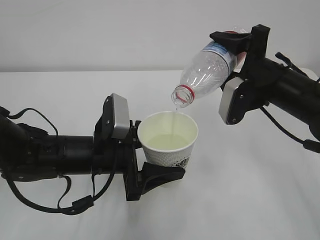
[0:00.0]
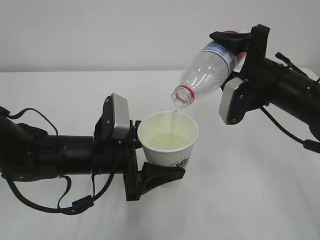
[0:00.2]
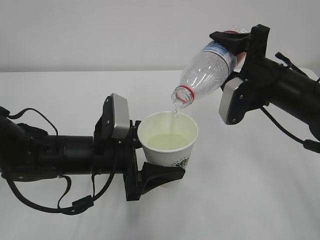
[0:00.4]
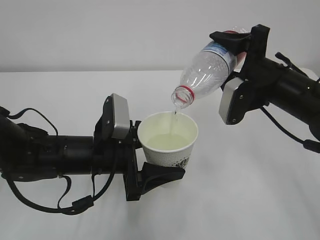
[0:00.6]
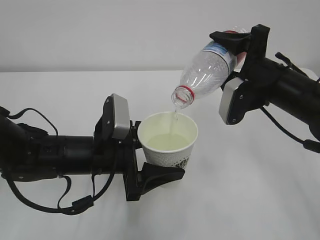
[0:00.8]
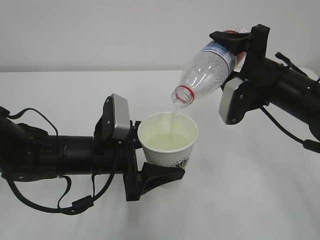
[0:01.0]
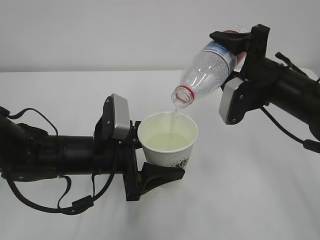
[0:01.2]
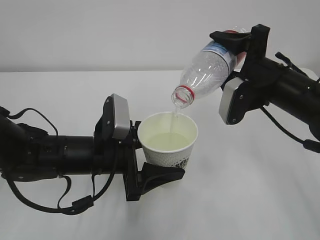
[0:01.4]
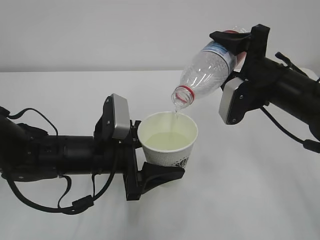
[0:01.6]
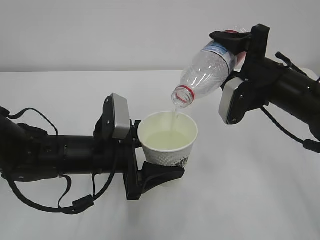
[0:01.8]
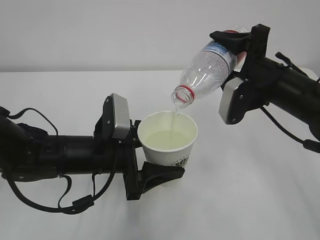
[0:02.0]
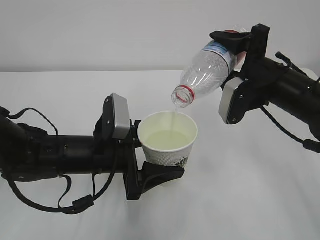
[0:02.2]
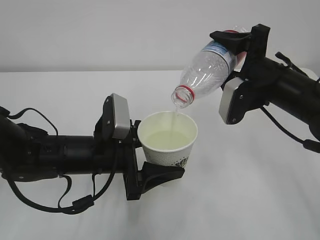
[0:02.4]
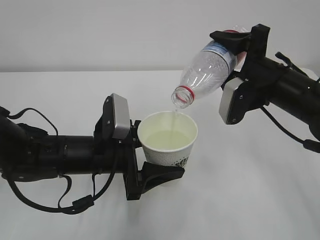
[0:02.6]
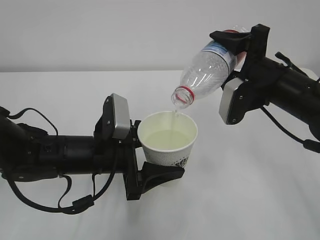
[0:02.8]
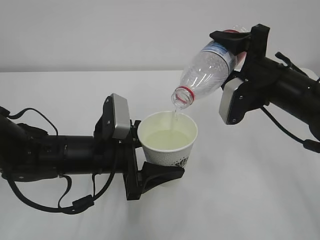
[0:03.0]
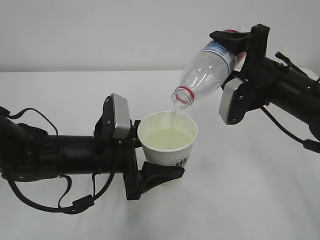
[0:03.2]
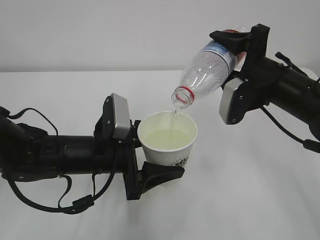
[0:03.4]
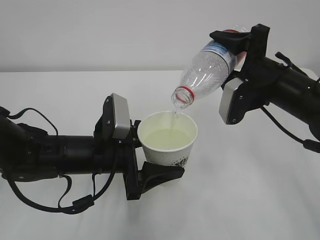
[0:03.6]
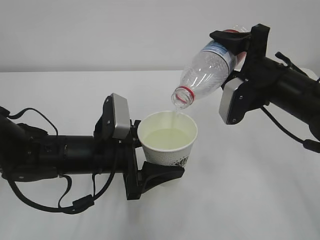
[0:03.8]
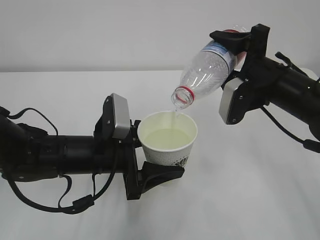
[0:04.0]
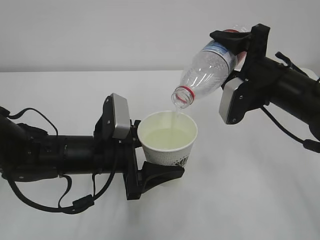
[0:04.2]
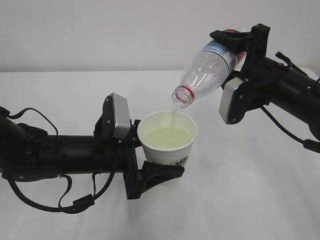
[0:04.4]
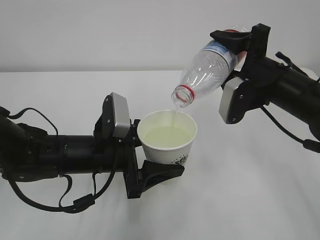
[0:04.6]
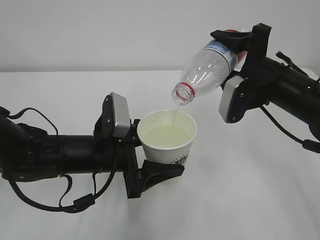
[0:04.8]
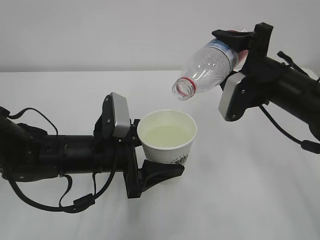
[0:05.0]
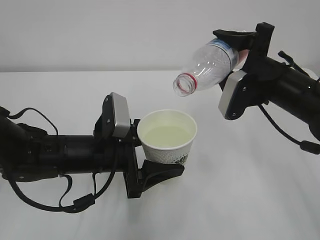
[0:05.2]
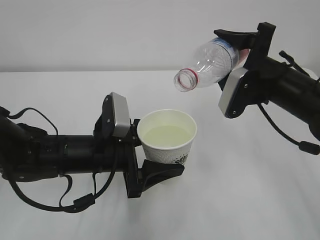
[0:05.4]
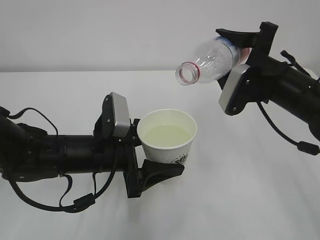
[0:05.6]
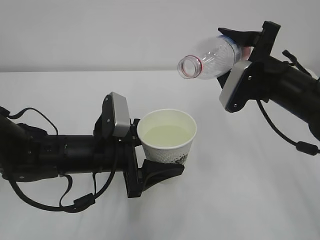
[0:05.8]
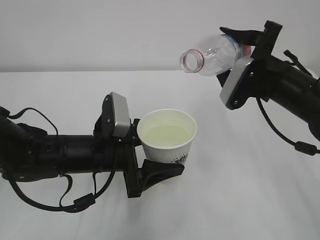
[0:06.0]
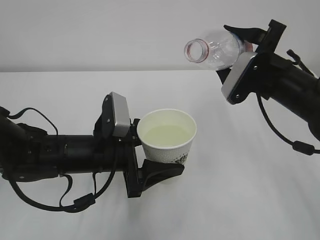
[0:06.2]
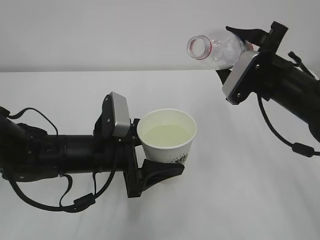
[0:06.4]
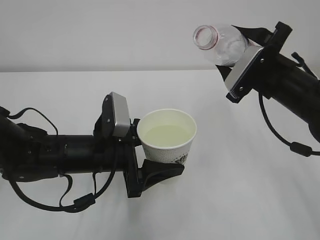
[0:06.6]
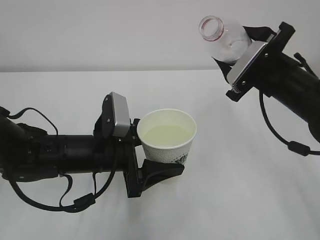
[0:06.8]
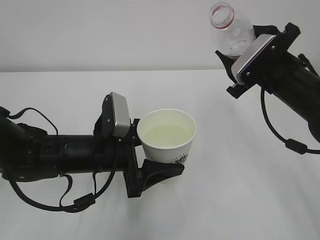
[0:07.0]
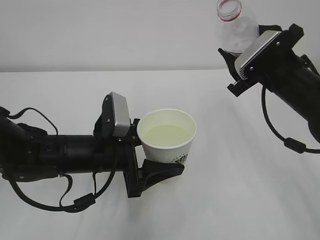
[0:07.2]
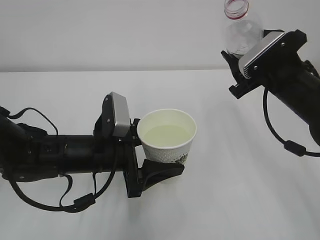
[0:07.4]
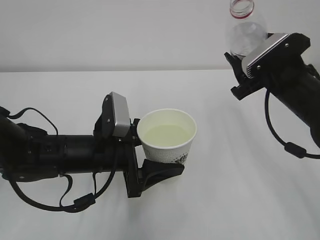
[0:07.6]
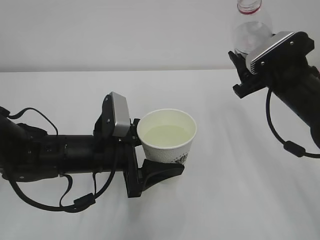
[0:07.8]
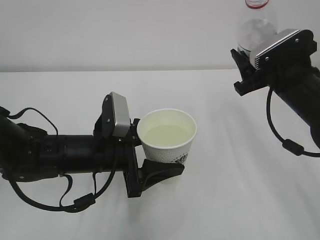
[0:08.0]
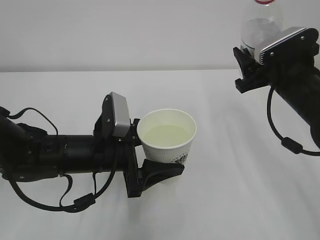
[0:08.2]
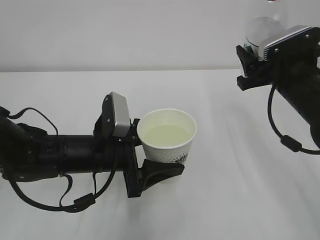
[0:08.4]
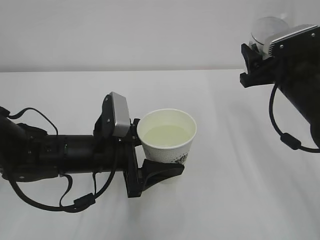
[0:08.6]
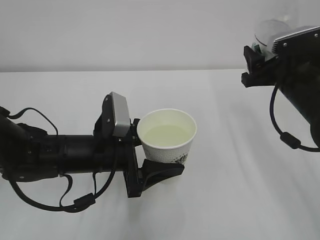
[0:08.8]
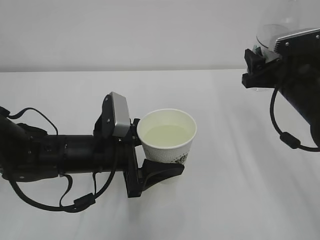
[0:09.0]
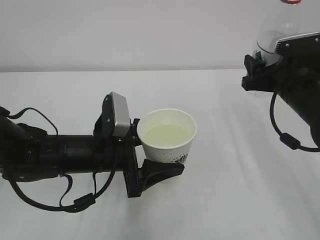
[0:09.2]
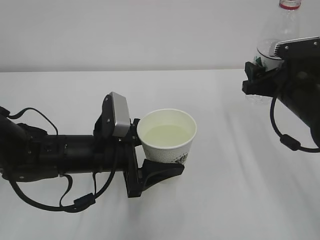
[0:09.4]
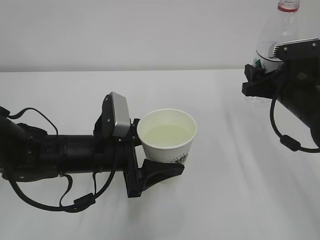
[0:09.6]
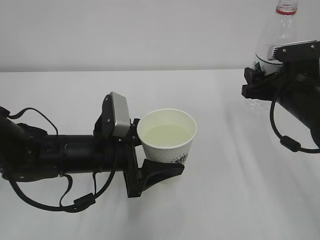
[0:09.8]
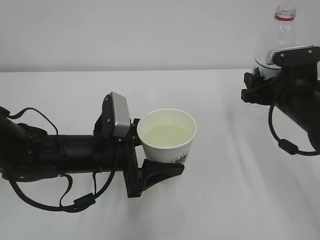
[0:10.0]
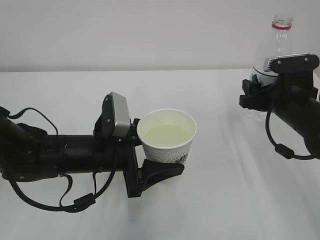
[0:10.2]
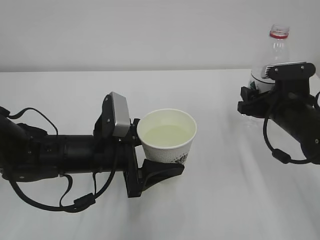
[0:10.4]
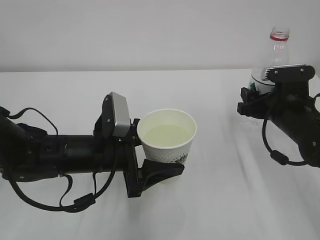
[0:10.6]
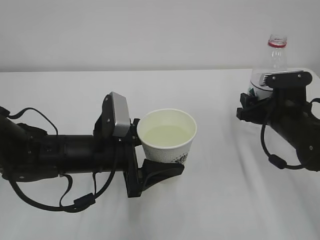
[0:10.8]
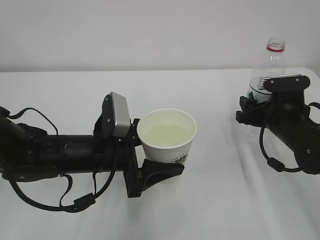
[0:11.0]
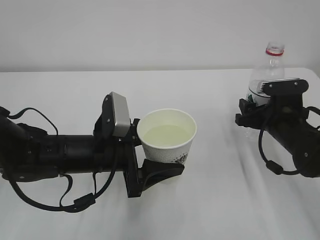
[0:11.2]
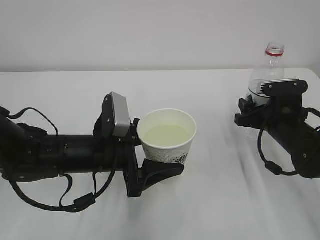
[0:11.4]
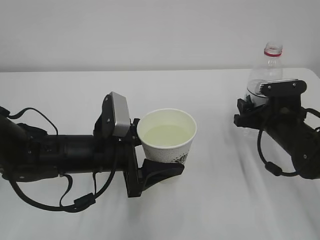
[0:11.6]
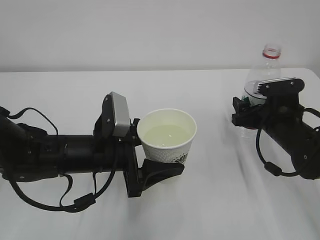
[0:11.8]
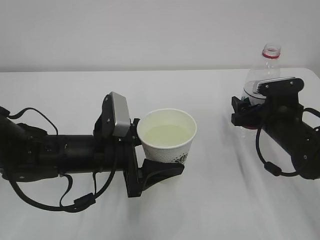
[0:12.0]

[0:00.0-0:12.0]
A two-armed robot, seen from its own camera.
0:00.0 to 0:04.4: Both grippers stay put.
0:09.0 to 0:10.4: The right gripper goes approximately 5 cm downward.
0:10.4 to 0:12.0: The right gripper opens up.

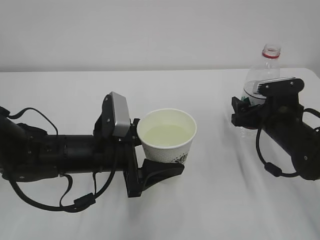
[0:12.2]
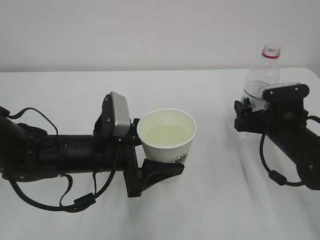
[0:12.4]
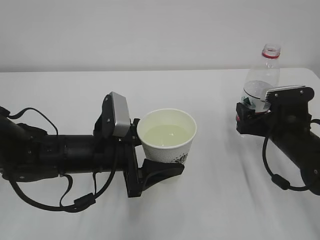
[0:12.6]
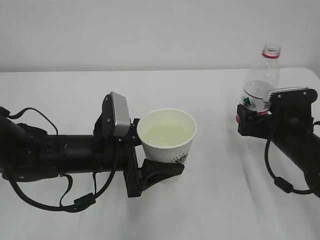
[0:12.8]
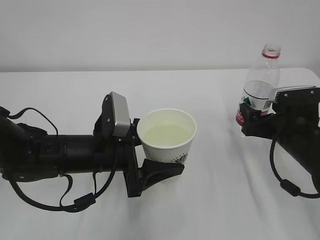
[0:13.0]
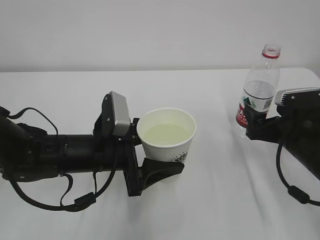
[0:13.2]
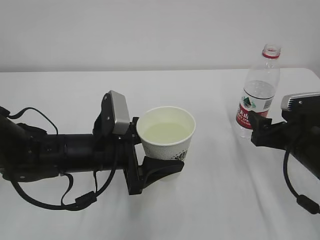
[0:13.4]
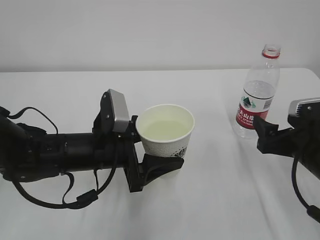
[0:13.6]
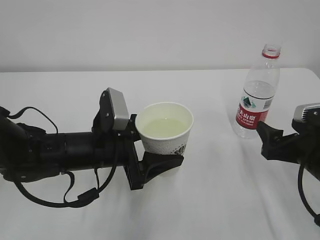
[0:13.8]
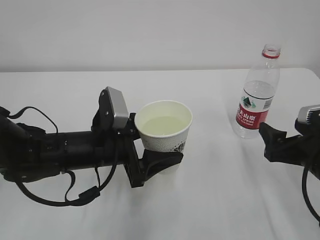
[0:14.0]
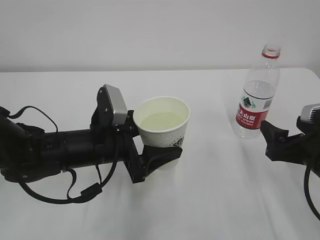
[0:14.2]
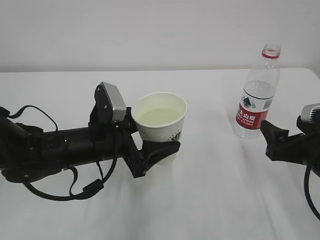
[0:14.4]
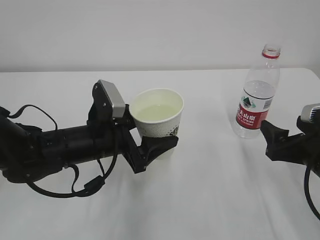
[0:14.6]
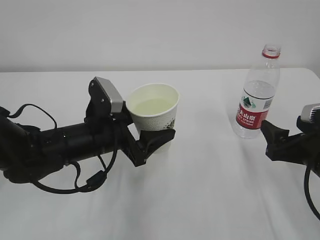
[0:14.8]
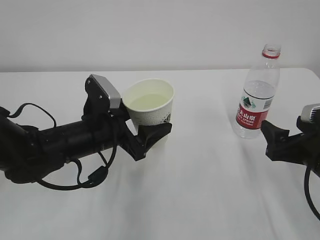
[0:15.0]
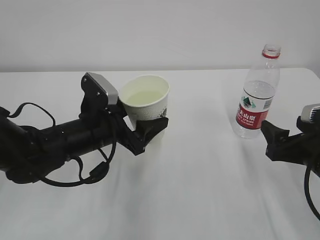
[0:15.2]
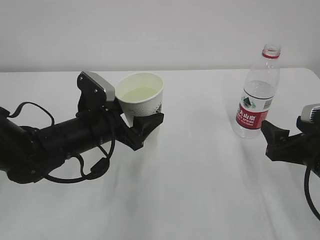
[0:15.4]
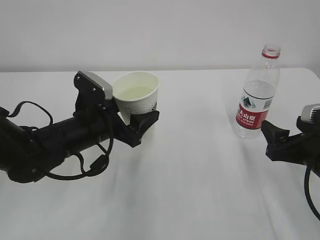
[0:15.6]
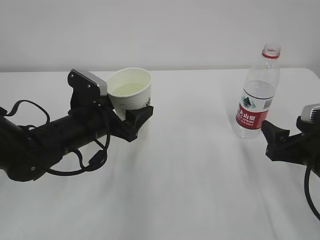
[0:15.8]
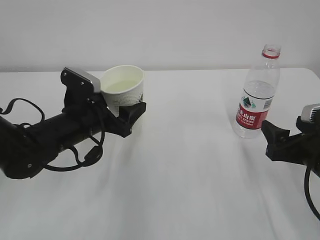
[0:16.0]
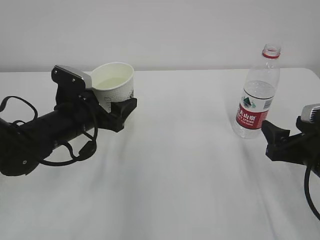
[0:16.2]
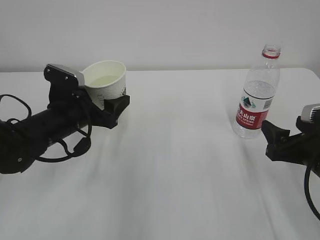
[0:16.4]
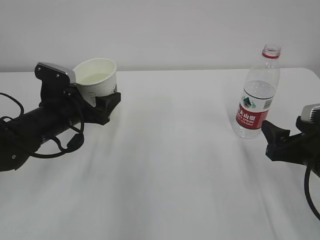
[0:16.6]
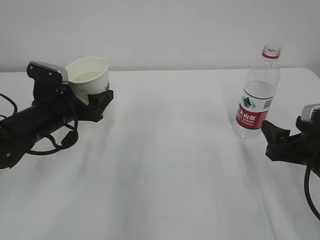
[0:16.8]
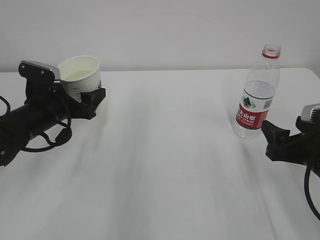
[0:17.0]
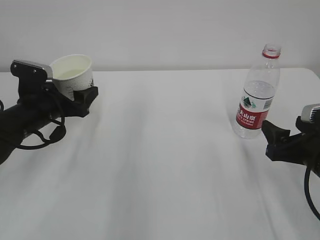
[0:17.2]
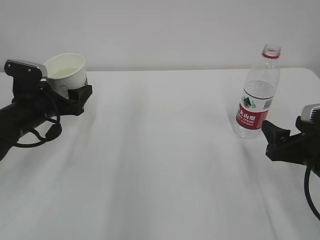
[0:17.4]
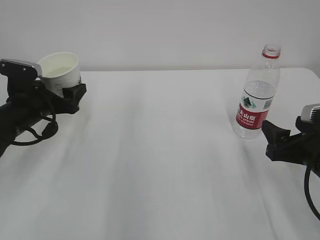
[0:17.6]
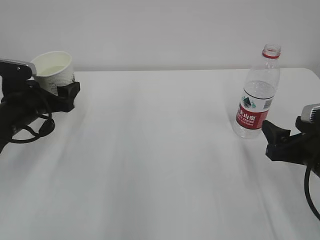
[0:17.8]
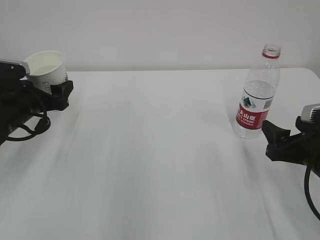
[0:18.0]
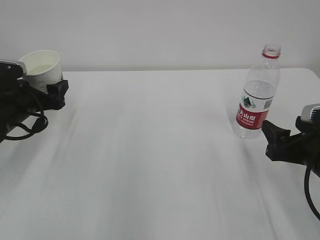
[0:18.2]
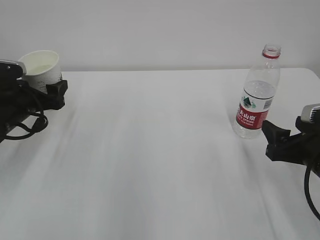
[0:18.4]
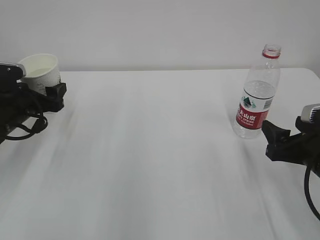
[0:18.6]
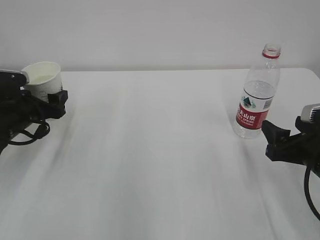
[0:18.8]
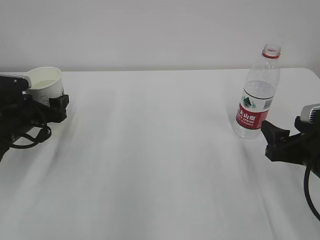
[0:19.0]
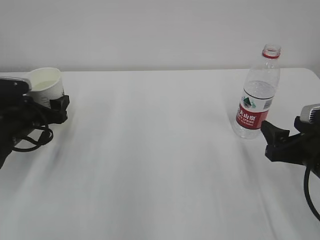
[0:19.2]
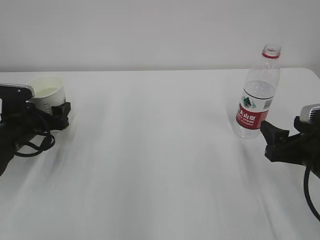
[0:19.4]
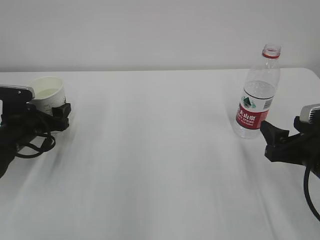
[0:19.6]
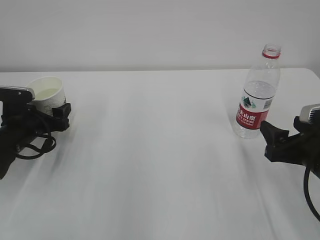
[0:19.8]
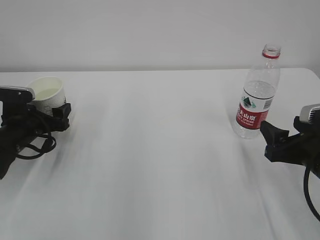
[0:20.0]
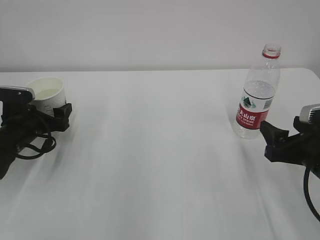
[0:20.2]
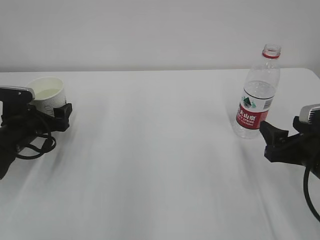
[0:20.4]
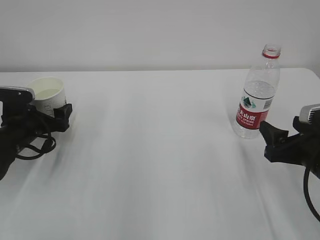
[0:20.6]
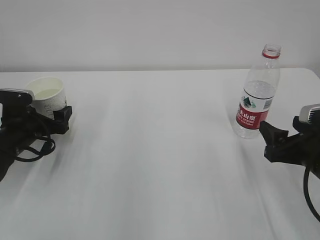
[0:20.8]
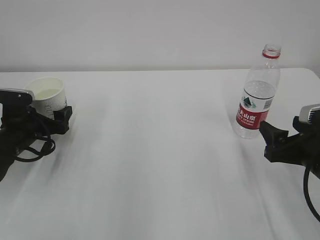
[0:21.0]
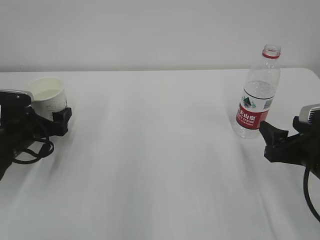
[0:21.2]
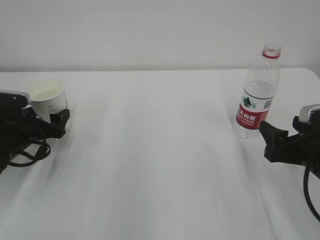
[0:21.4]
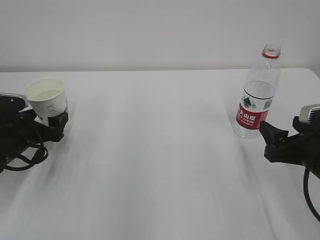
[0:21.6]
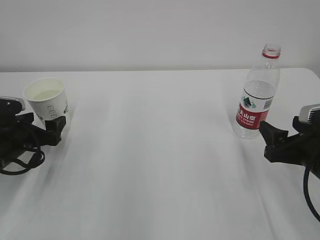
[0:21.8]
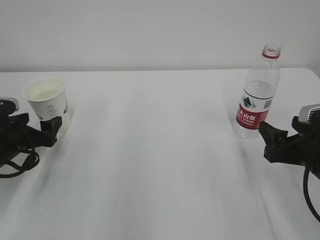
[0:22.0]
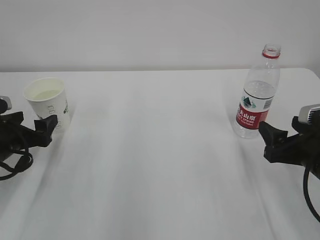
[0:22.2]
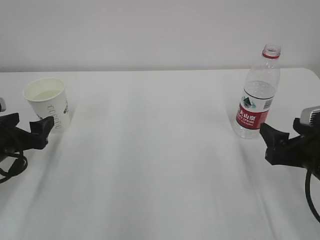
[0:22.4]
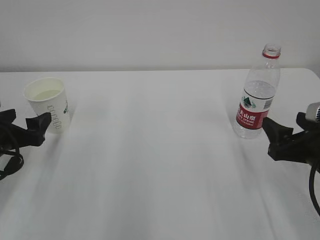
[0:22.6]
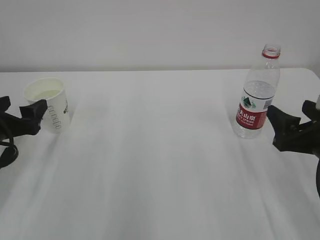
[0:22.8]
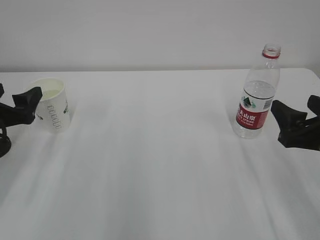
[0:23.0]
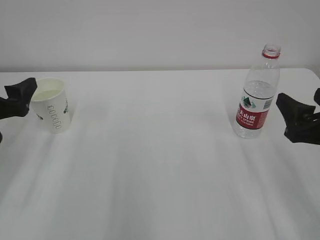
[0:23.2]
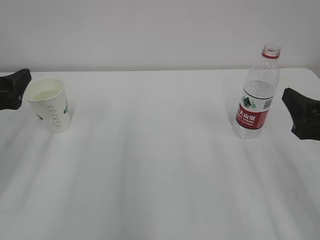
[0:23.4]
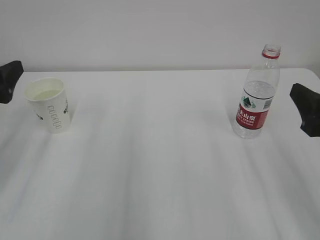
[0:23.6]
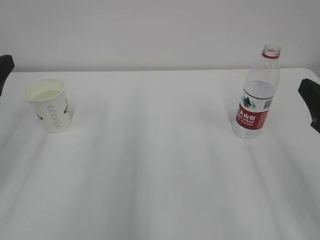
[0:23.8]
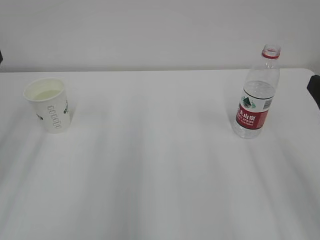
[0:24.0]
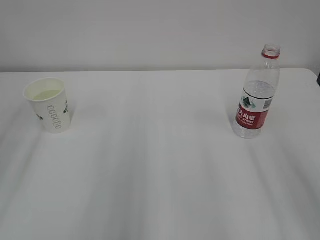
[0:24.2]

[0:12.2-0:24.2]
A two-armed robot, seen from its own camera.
0:12.2 to 0:13.8: The right gripper moves backward, approximately 10 cm.
0:15.2 to 0:16.6: The left gripper goes approximately 5 cm to the left.
0:16.6 to 0:18.2: The left gripper heads to the left, covering about 10 cm.
0:18.2 to 0:19.8: The left gripper is displaced downward by approximately 5 cm.
0:19.8 to 0:21.2: The left gripper opens.
0:21.2 to 0:22.6: The left gripper goes roughly 5 cm backward.
0:22.6 to 0:24.2: The two grippers go roughly 15 cm upward and backward.
